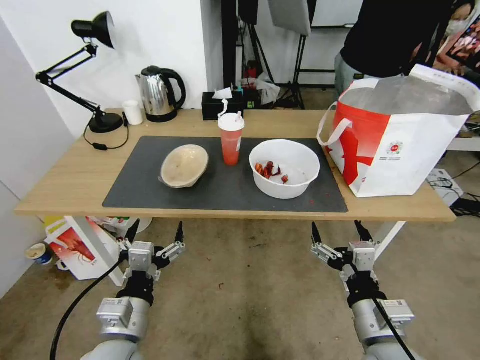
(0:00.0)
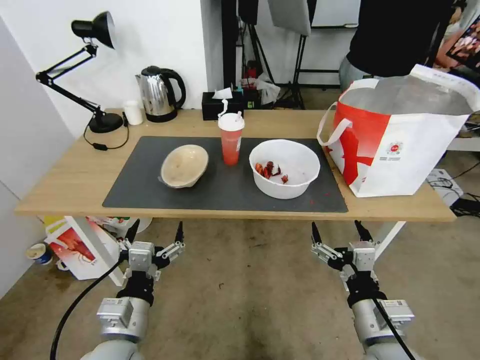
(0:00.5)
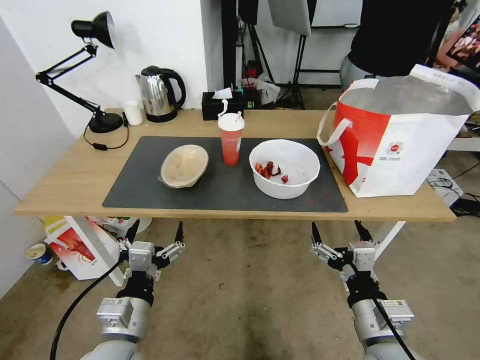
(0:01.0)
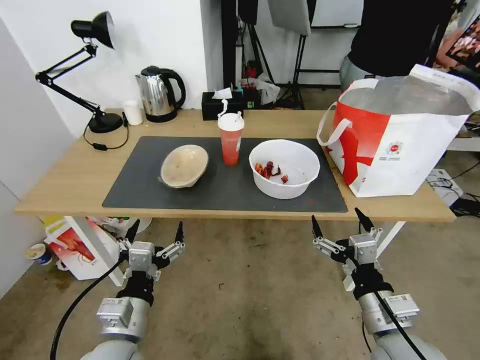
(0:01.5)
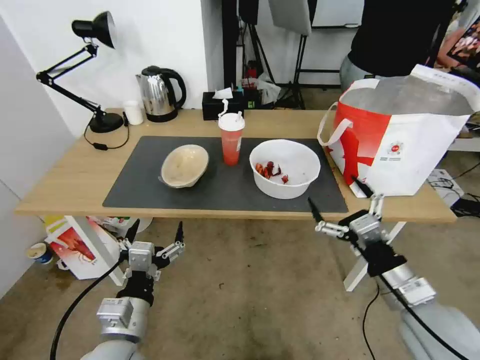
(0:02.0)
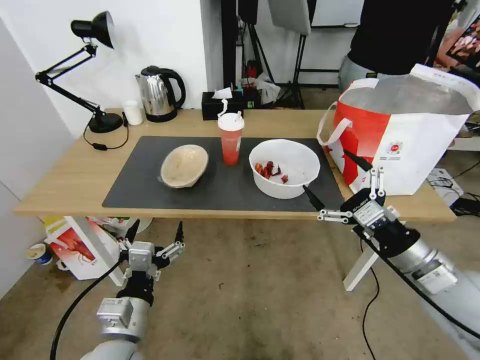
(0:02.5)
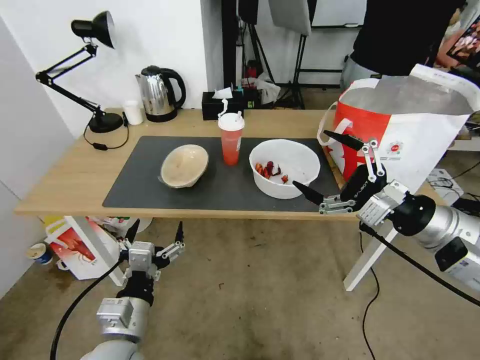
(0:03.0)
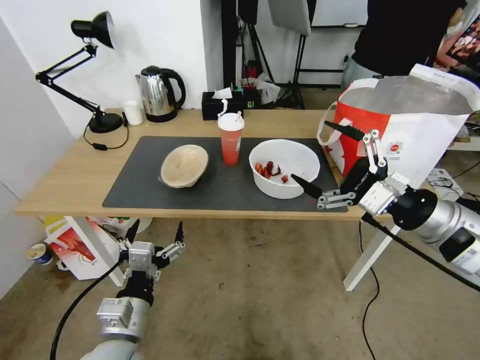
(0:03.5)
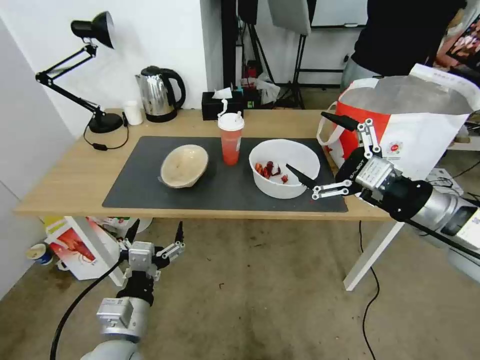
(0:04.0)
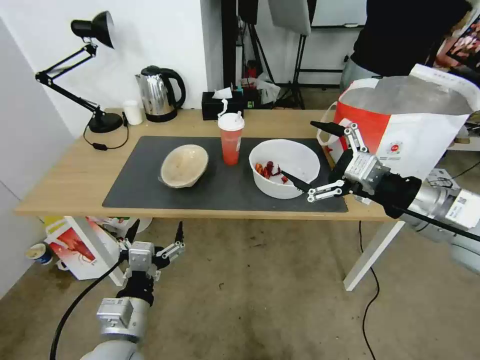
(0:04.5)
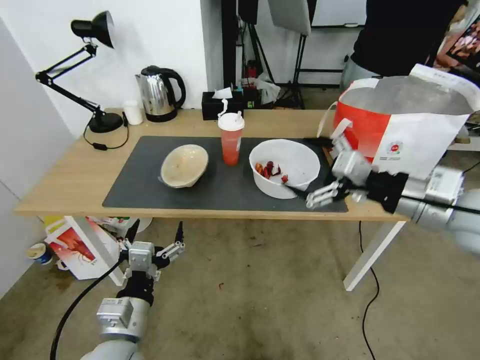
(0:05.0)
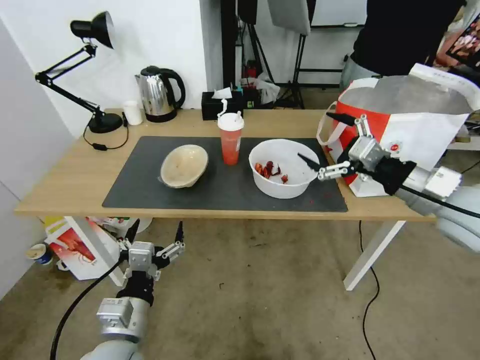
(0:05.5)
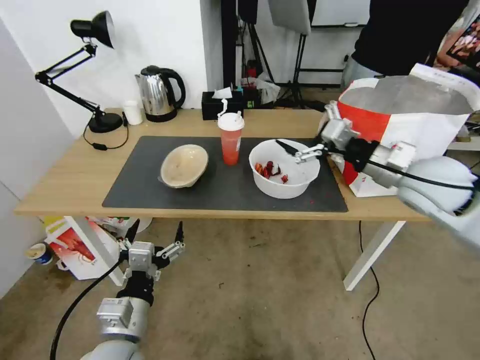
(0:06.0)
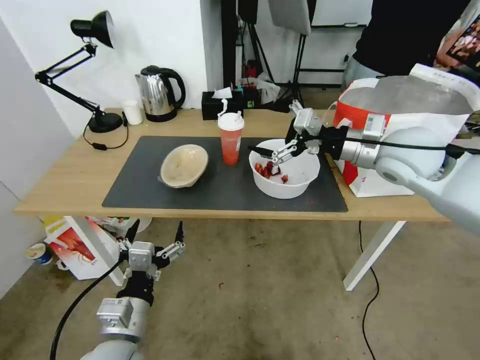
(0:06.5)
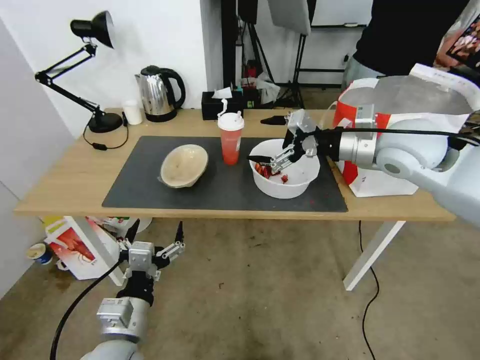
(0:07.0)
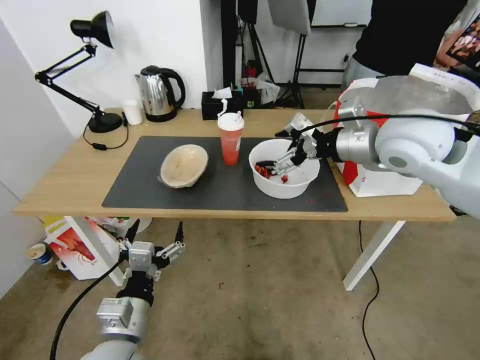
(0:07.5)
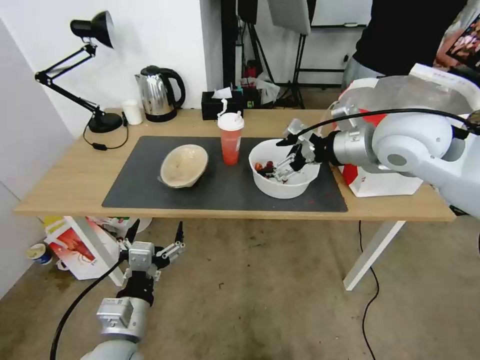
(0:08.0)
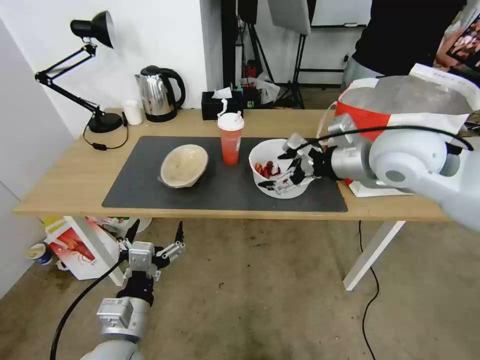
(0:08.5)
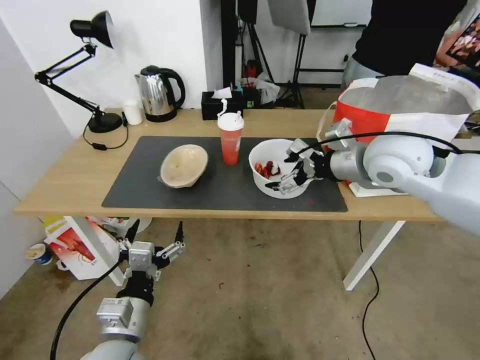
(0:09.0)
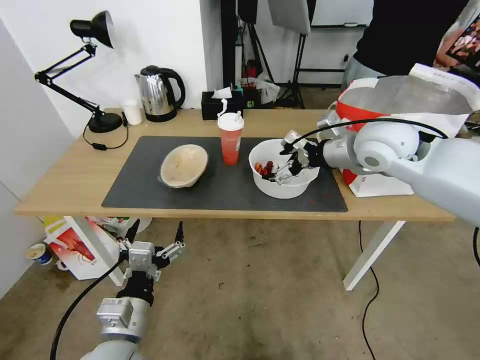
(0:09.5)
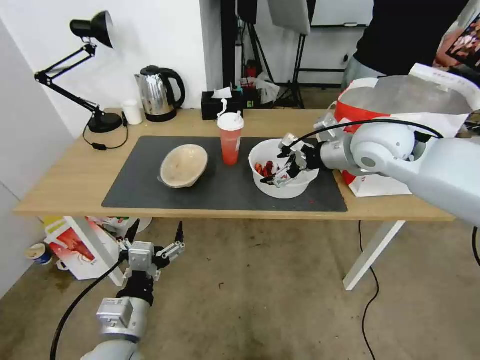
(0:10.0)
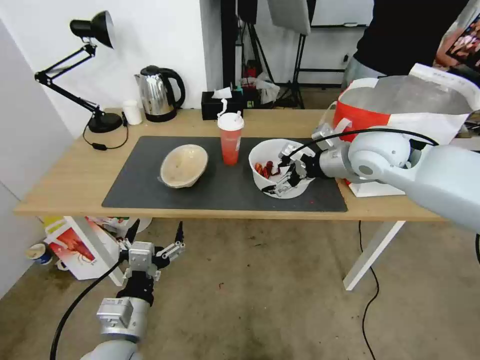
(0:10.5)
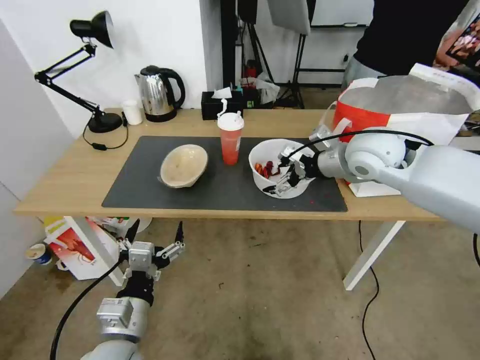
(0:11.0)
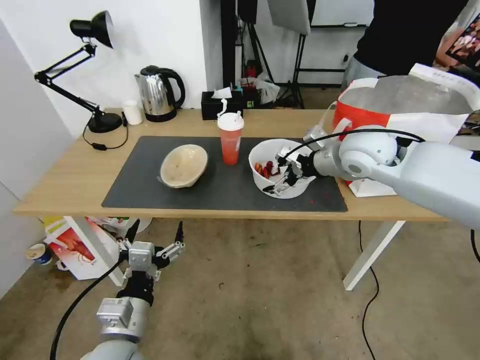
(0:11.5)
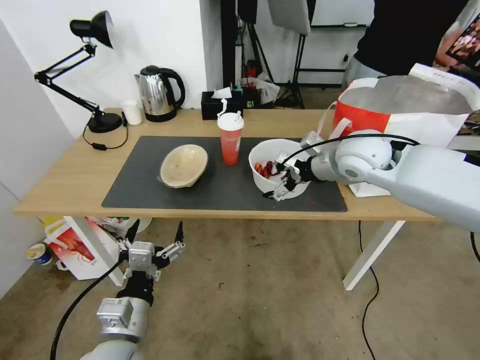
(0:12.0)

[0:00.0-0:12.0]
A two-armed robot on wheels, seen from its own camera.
Task of the whole recording: Pick up the trash from the table and place it into the takeout bag.
0:02.0 to 0:04.0: The right gripper shifts approximately 20 cm upward and forward.
0:04.0 to 0:06.0: The right gripper is displaced forward by about 10 cm.
0:06.0 to 0:08.0: The right gripper goes about 10 cm upward and to the left.
0:08.0 to 0:10.0: The right gripper changes place by approximately 5 cm.
0:10.0 to 0:12.0: The grippers move only a little.

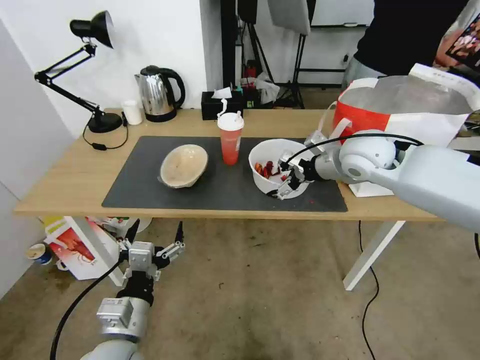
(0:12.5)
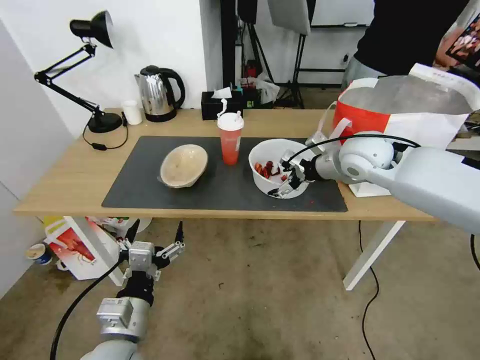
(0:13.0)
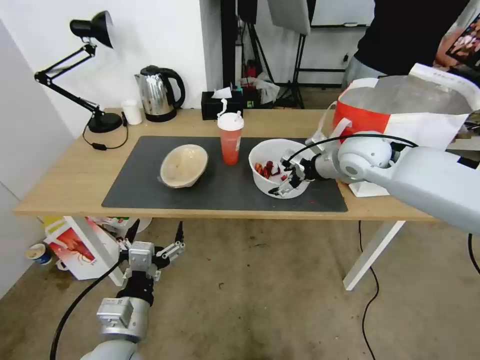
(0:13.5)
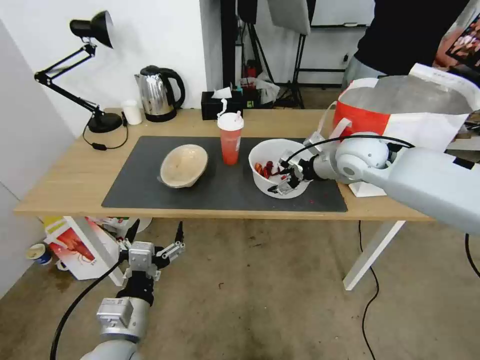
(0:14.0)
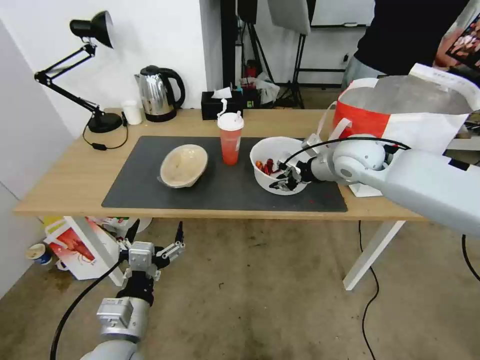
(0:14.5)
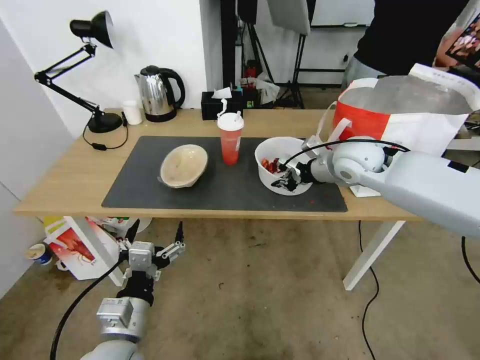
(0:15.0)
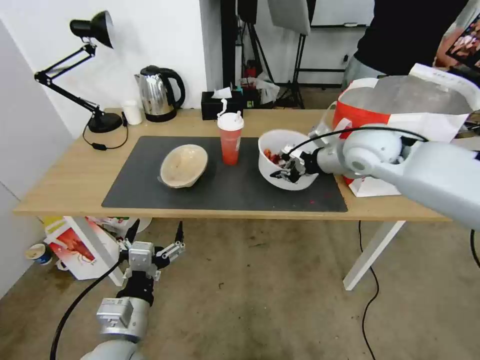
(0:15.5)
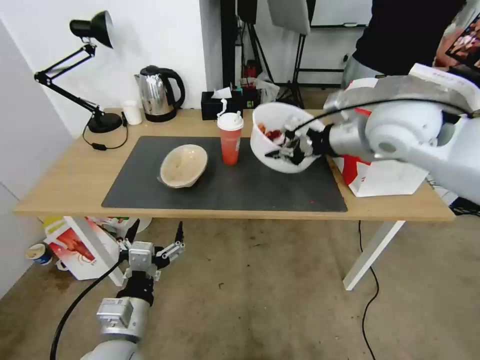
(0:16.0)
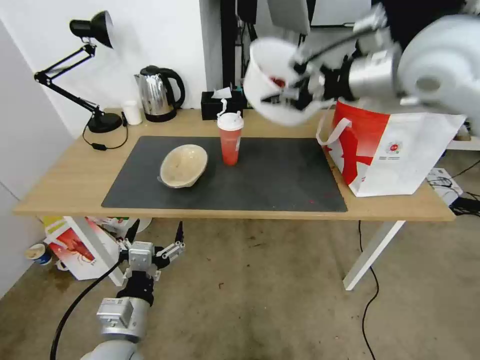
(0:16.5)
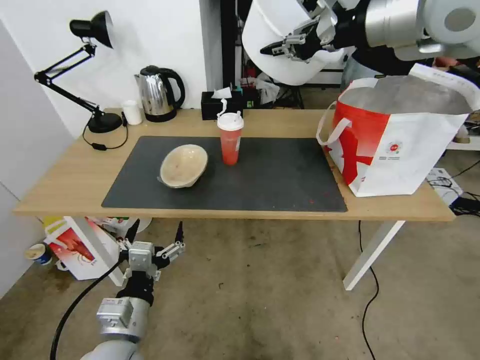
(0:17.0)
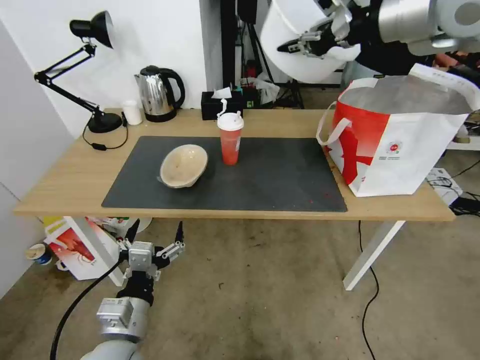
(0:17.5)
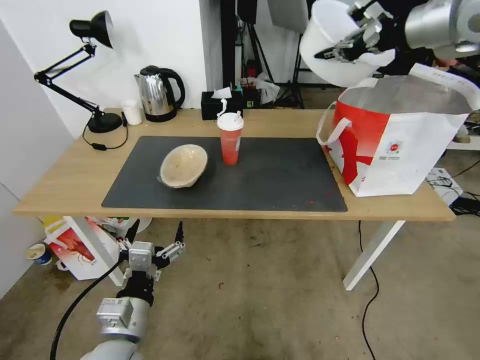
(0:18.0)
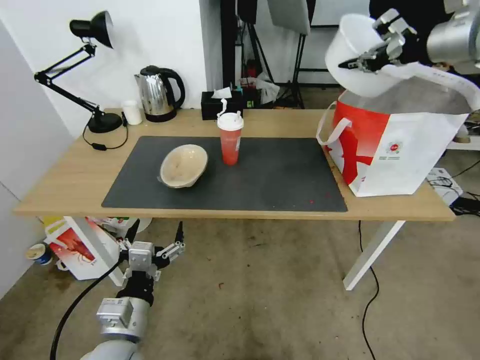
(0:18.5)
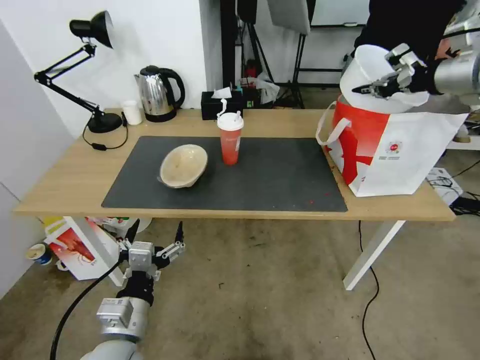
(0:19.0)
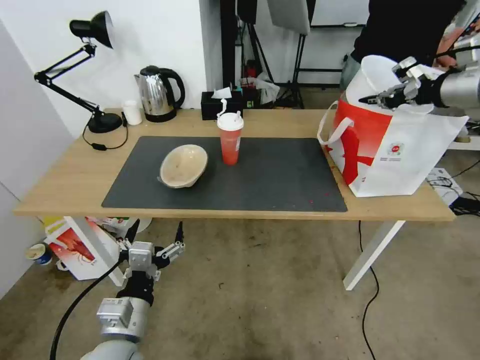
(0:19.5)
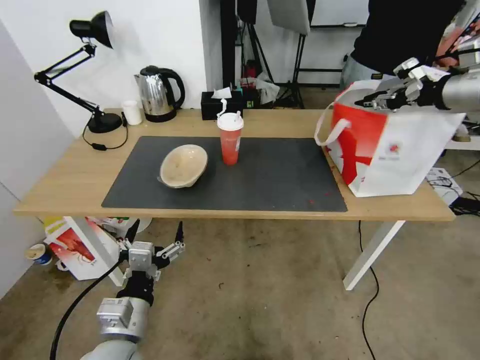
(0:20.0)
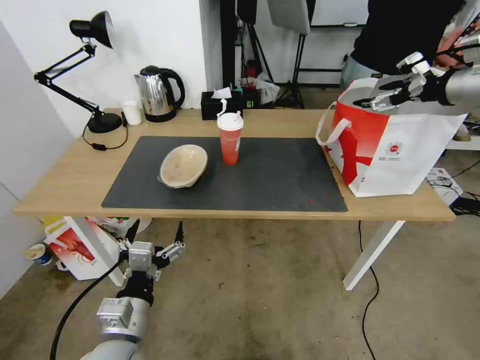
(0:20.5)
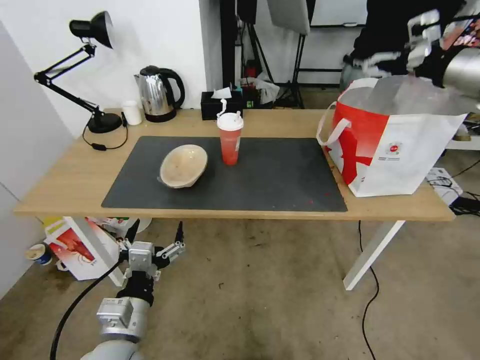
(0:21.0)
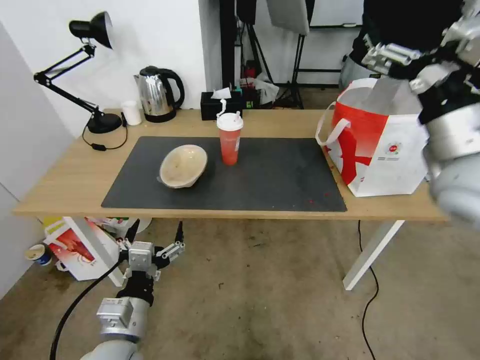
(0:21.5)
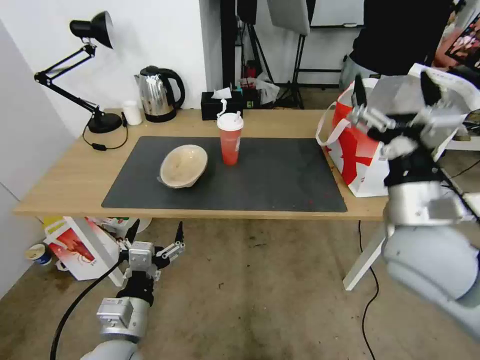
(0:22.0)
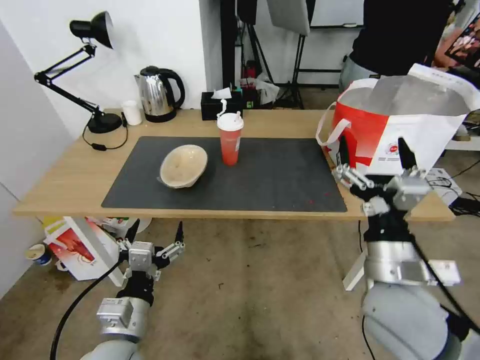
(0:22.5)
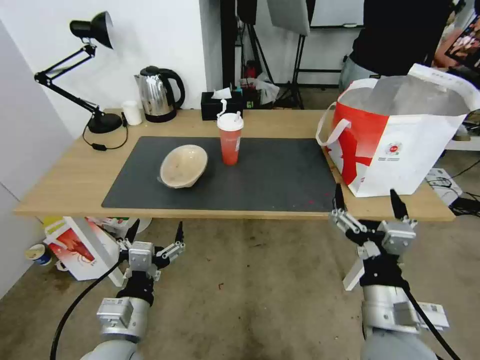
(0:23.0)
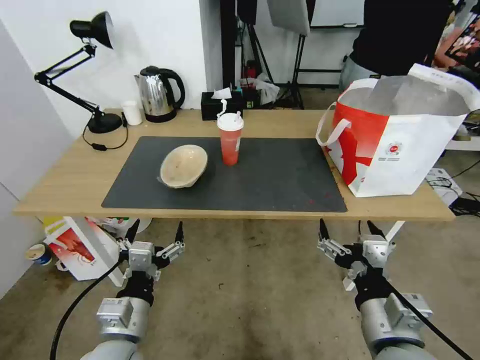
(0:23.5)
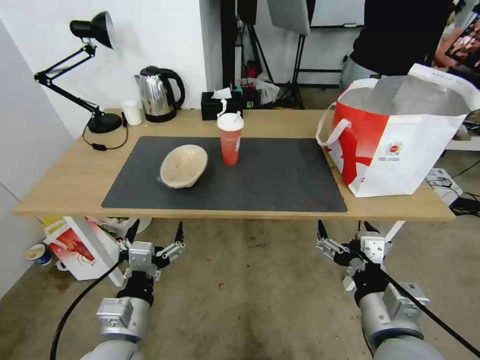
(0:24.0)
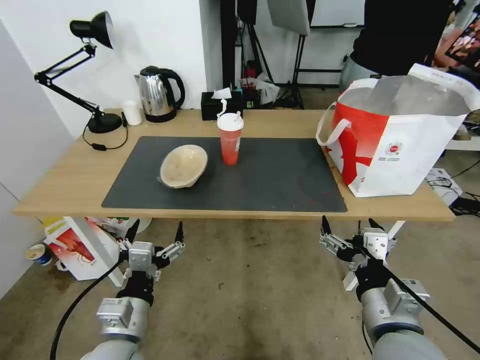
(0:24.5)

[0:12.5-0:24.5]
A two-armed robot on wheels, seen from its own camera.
Task of the whole recording: Pick up the trash from the table and place it into the takeout bag.
0:12.5 to 0:14.5: The right gripper closes its fingers.
0:14.5 to 0:16.5: The right gripper goes roughly 20 cm upward.
0:16.5 to 0:18.5: The right gripper is displaced to the right, forward and upward by about 15 cm.
0:18.5 to 0:20.5: The right gripper goes roughly 10 cm downward and to the right, and opens up.
0:20.5 to 0:22.5: The right gripper travels backward, downward and to the left by roughly 40 cm.
0:22.5 to 0:24.5: The right gripper travels backward by approximately 5 cm.

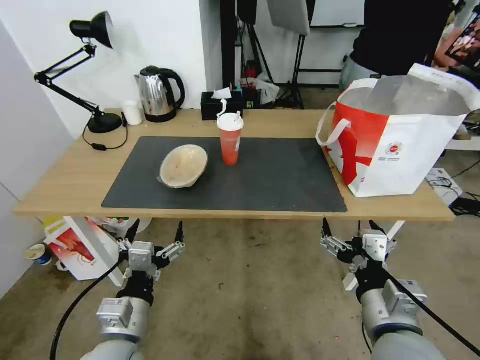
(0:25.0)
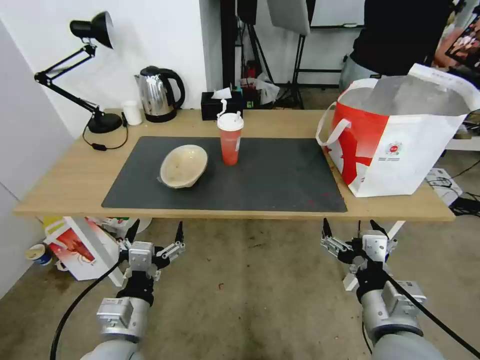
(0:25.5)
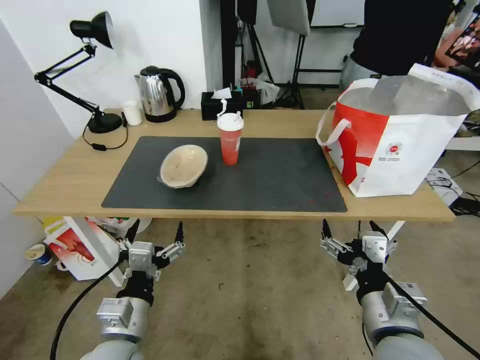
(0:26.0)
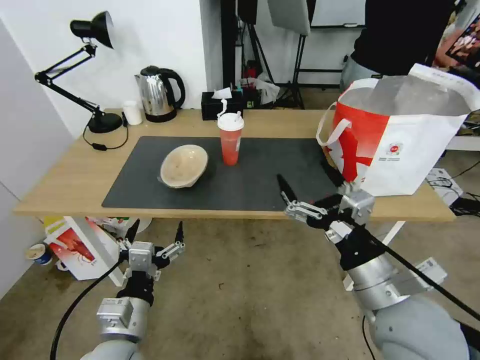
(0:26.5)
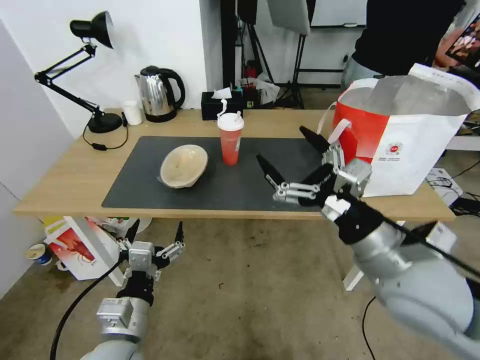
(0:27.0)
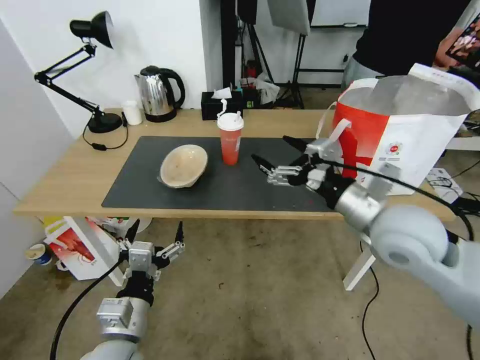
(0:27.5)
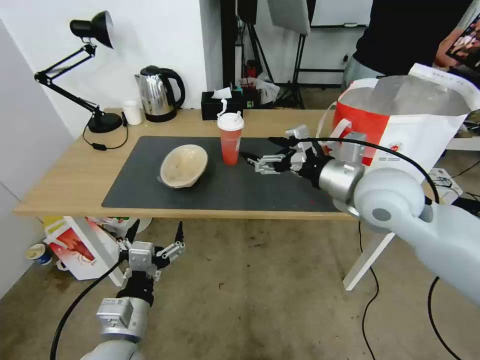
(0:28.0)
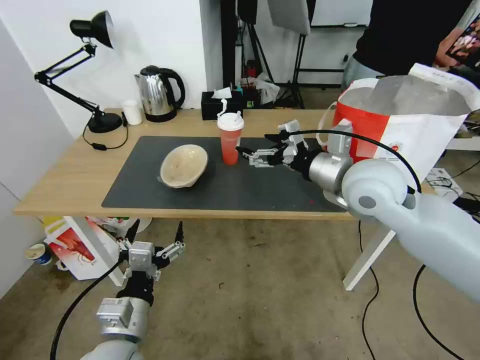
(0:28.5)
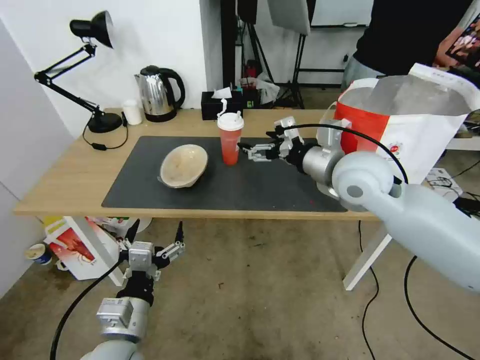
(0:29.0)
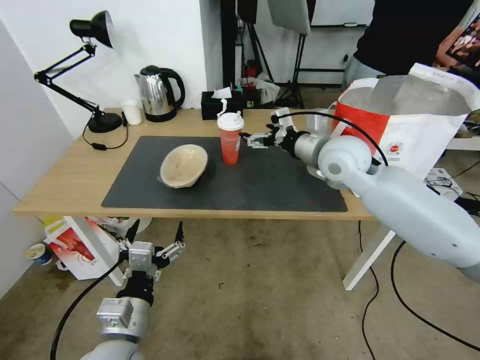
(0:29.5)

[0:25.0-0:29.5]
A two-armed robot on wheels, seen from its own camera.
Task of the whole recording: Pick up the trash from the table and place it into the takeout bag.
0:25.0 to 0:27.0: The right gripper is displaced forward and upward by approximately 10 cm.
0:27.0 to 0:29.5: The right gripper heads forward, covering about 25 cm.
